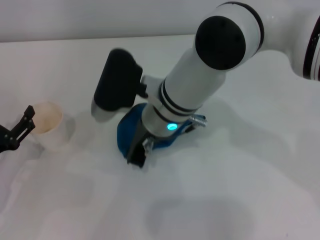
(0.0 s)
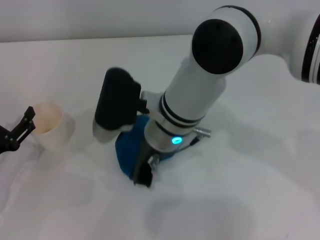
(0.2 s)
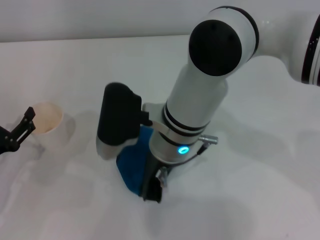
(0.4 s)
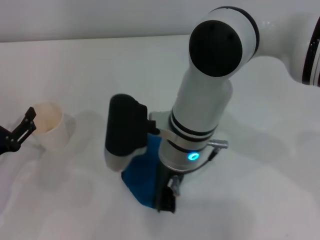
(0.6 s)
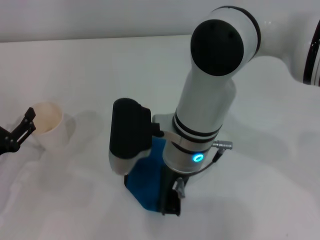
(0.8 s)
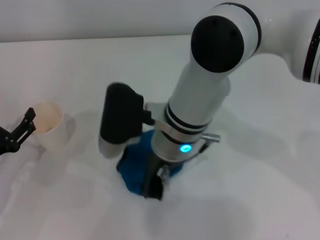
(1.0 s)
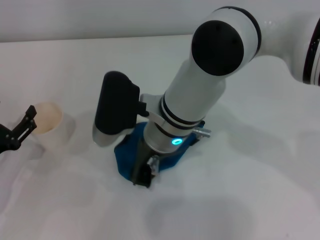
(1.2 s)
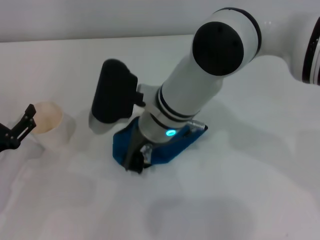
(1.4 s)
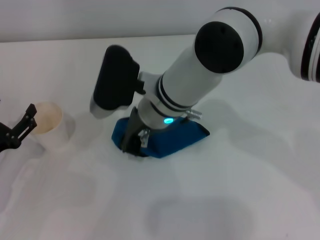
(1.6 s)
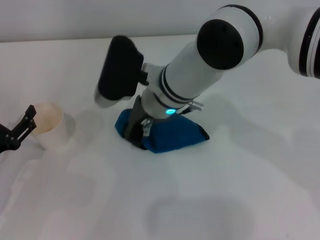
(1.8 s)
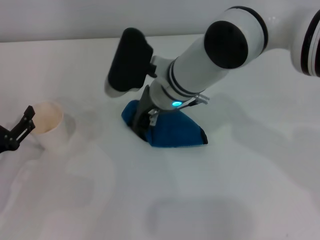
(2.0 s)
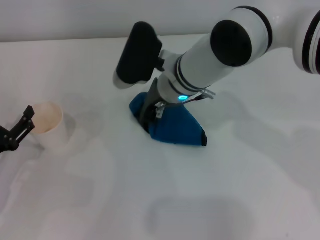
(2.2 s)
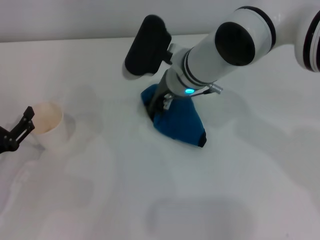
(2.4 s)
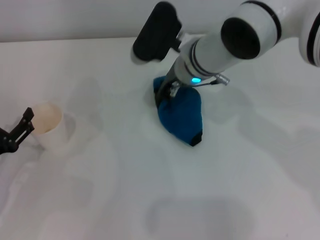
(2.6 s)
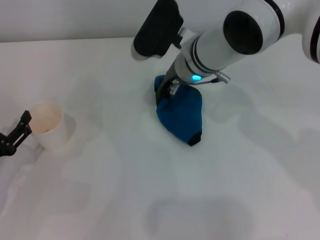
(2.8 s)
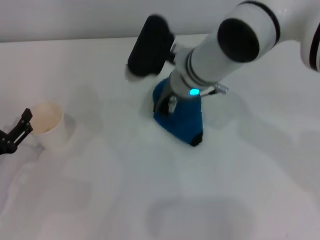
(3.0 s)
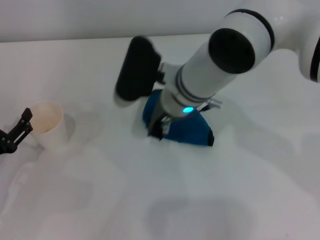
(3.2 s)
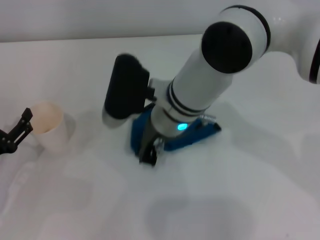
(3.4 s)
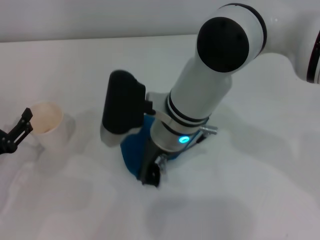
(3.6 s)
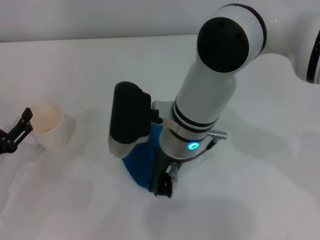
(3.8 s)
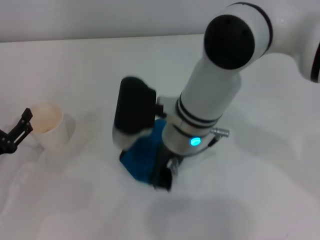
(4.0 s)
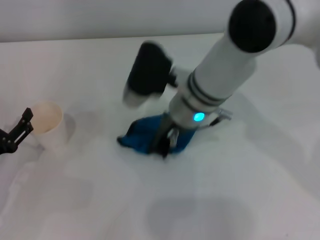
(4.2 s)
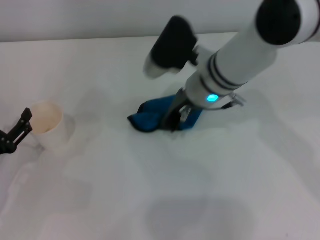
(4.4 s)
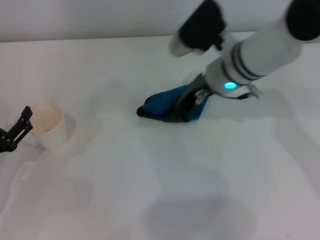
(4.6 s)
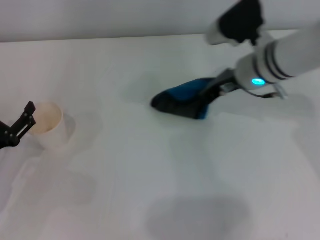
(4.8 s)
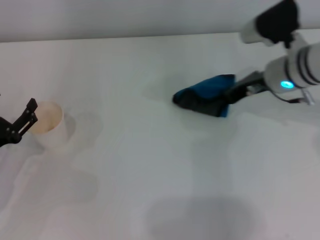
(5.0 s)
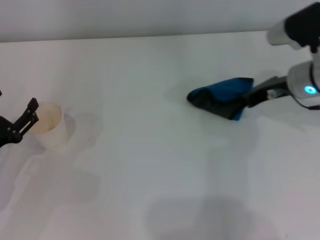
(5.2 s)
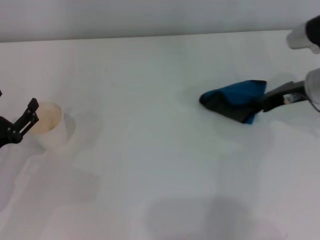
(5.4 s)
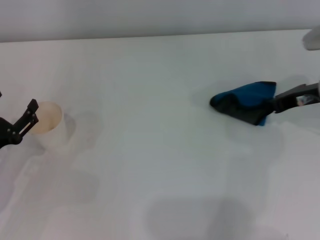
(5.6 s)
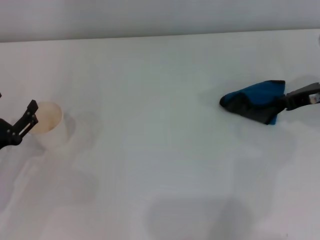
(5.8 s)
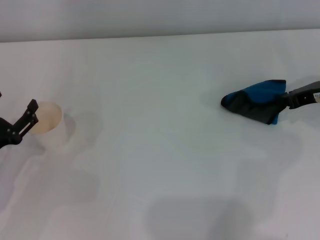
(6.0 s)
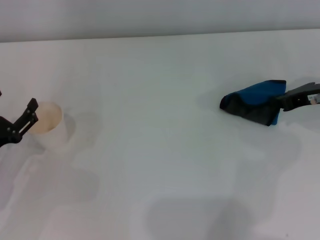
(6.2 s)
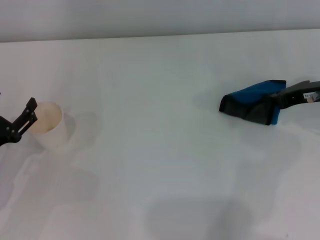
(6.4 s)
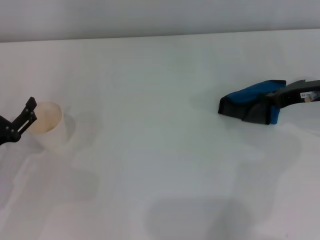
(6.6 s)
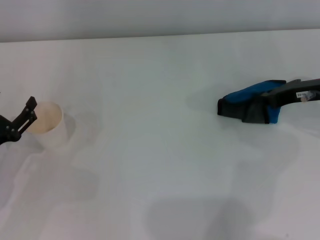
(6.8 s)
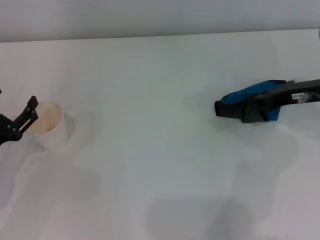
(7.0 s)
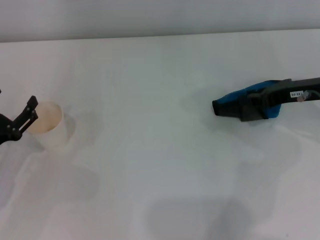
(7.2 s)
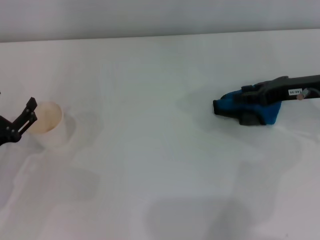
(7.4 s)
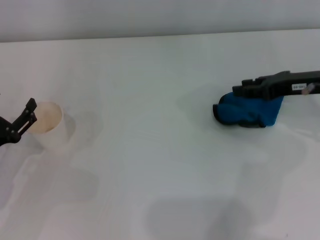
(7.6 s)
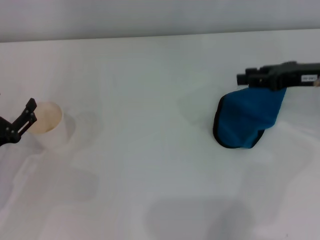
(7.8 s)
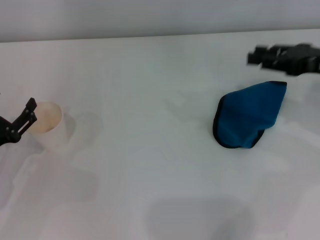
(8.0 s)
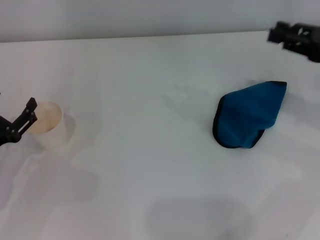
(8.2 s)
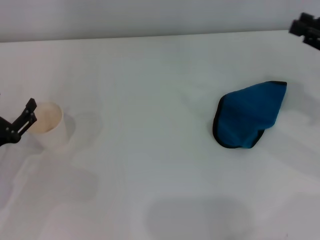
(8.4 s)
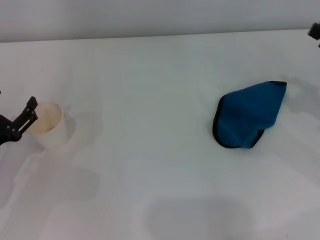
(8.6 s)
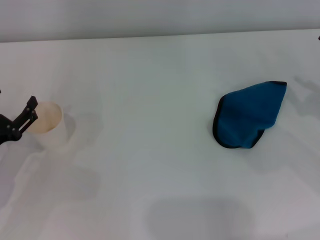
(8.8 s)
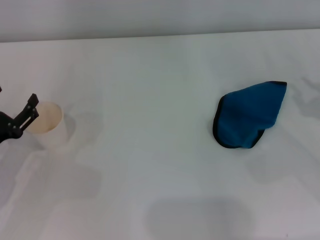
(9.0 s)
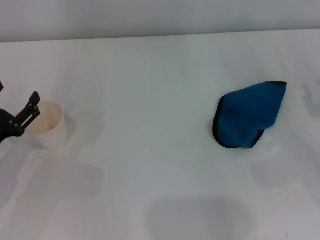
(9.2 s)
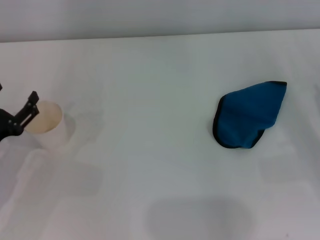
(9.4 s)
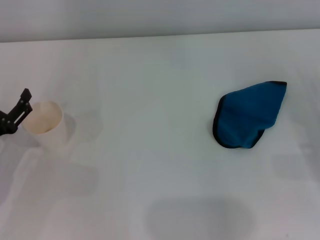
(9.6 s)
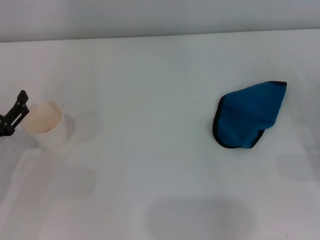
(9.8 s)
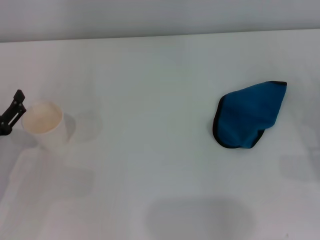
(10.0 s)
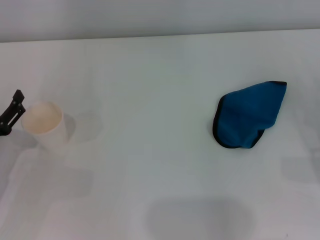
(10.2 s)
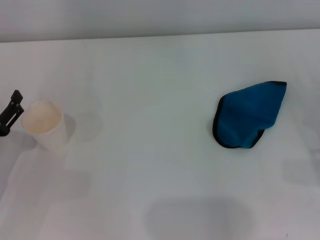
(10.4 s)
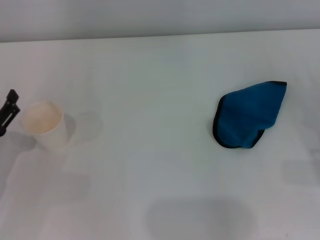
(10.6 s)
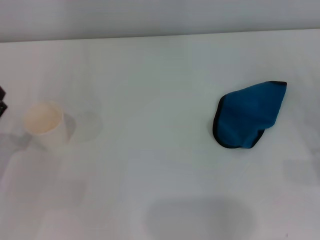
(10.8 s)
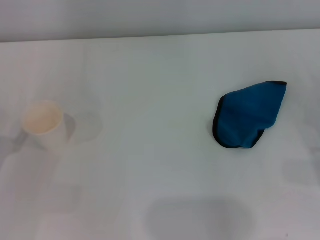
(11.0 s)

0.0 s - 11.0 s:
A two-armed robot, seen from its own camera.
Step, 0.0 s - 6.6 s: Wipe the stains off the table with the right gripper.
Step, 6.8 s - 7.4 s: Place the rag on the table with the right gripper.
3.2 s - 4.8 s: The right gripper is displaced to the right by about 15 cm.
4.8 s - 6.2 s: The right gripper shifts approximately 15 cm to the right and backward.
6.2 s - 7.8 s: The right gripper opens up.
7.8 s - 9.4 s: The right gripper shifts about 15 cm downward, backward and to the right.
9.4 s - 11.0 s: There are only small adjustments of the grippers.
